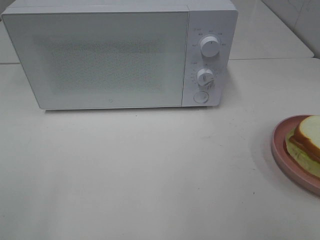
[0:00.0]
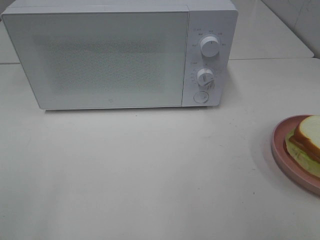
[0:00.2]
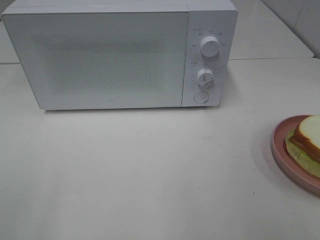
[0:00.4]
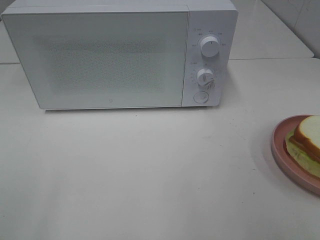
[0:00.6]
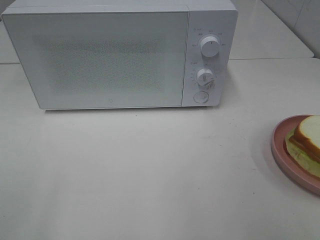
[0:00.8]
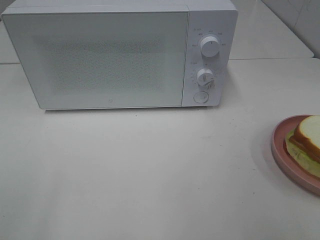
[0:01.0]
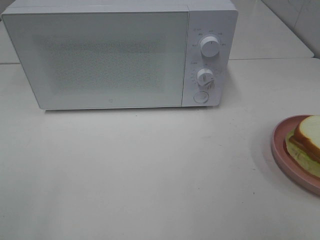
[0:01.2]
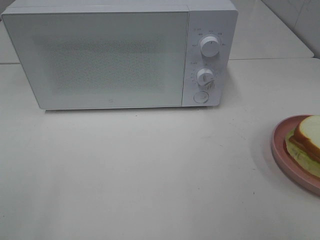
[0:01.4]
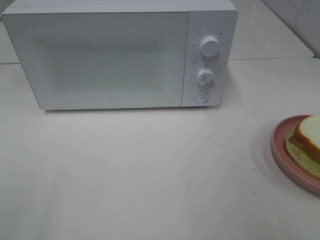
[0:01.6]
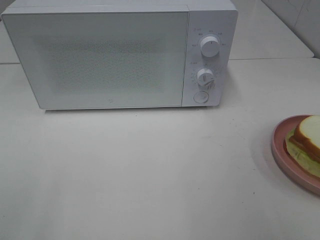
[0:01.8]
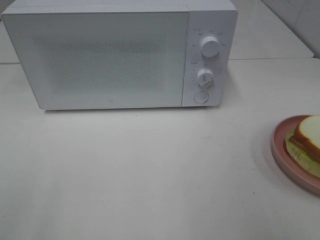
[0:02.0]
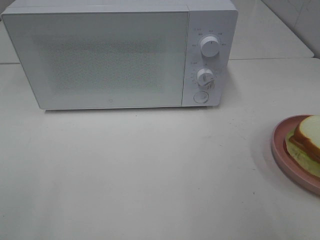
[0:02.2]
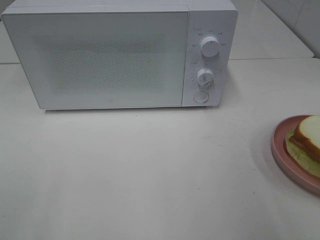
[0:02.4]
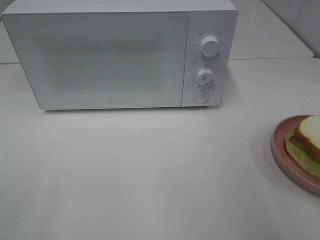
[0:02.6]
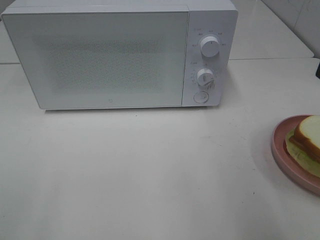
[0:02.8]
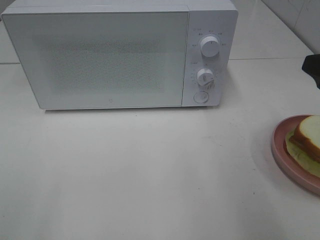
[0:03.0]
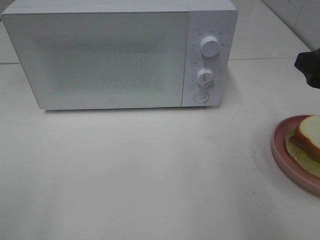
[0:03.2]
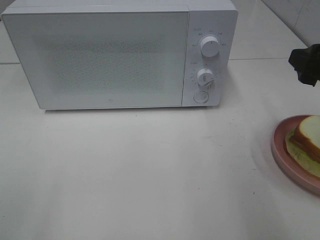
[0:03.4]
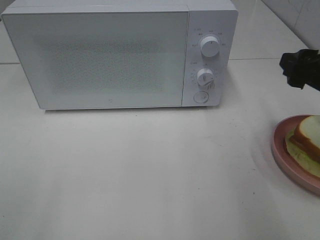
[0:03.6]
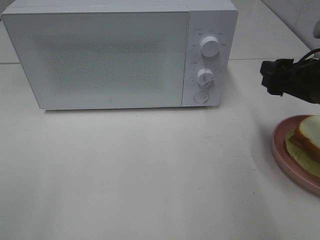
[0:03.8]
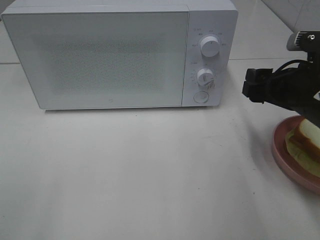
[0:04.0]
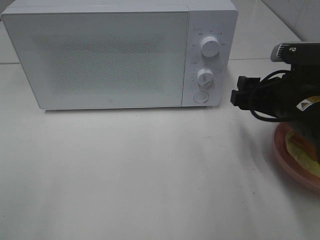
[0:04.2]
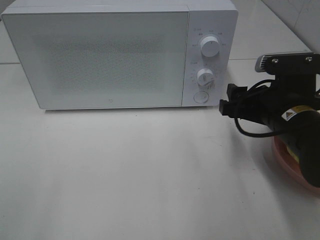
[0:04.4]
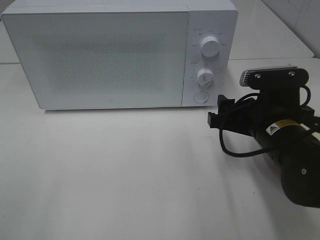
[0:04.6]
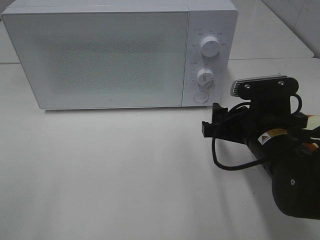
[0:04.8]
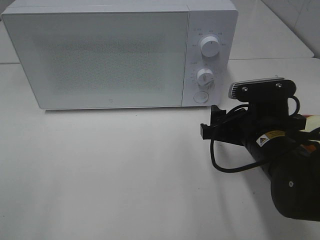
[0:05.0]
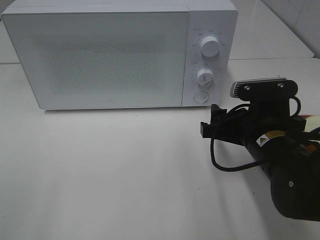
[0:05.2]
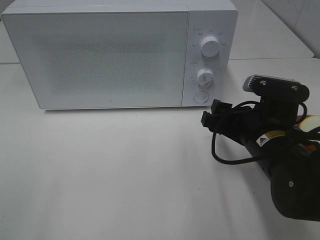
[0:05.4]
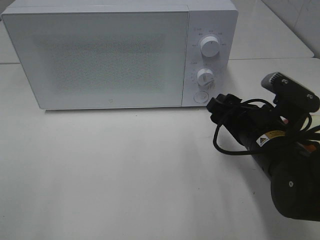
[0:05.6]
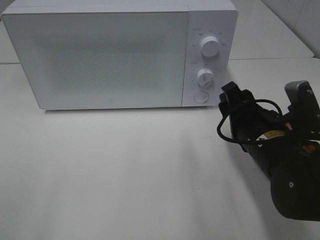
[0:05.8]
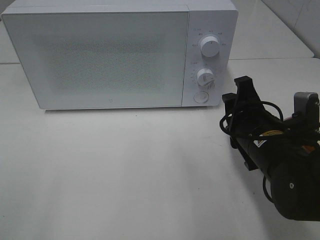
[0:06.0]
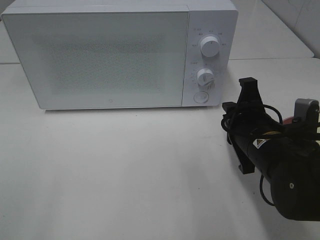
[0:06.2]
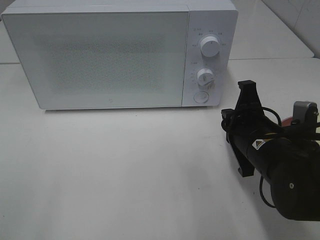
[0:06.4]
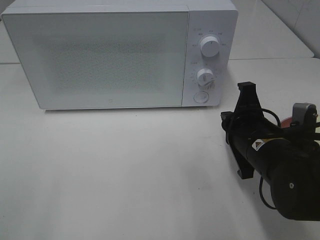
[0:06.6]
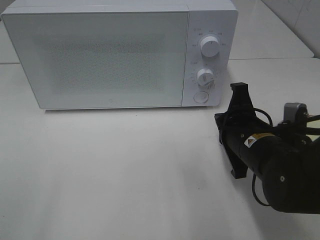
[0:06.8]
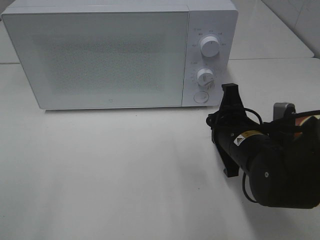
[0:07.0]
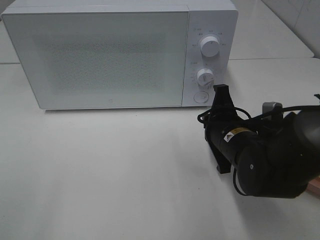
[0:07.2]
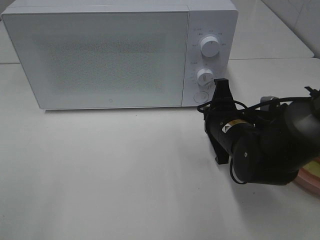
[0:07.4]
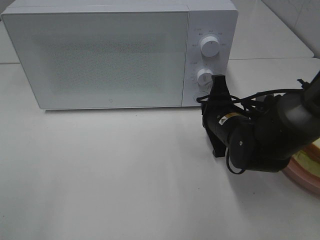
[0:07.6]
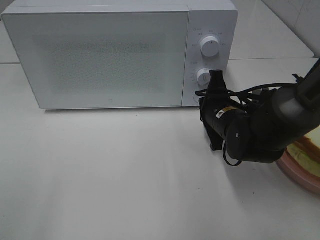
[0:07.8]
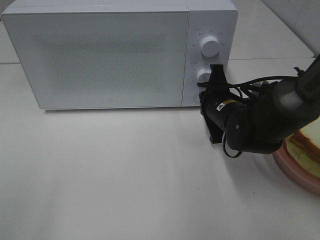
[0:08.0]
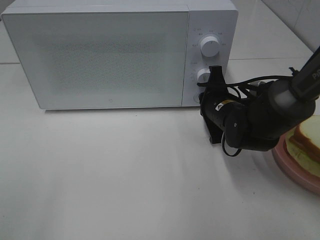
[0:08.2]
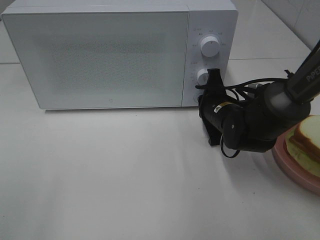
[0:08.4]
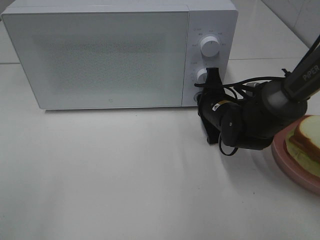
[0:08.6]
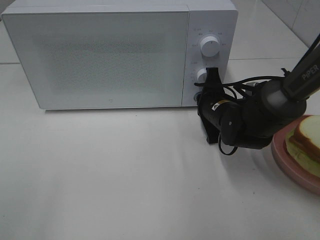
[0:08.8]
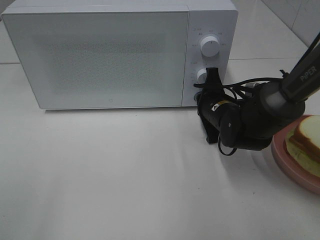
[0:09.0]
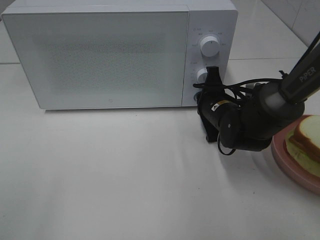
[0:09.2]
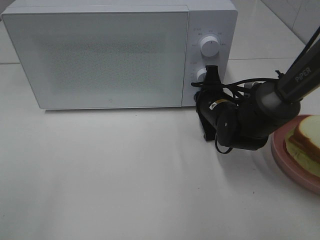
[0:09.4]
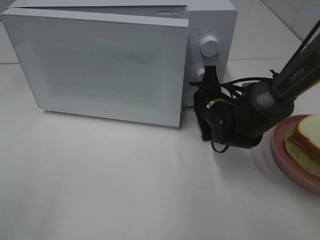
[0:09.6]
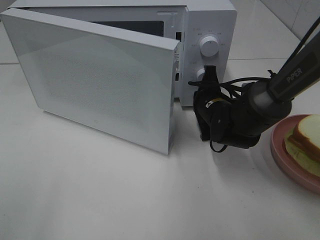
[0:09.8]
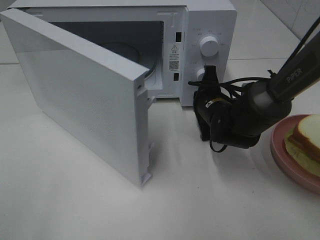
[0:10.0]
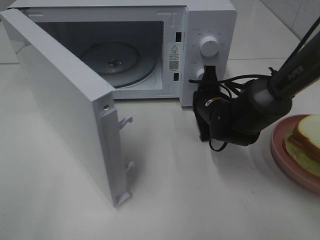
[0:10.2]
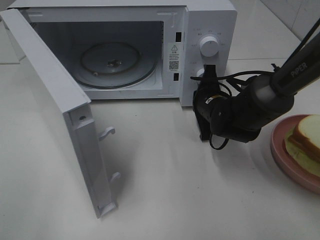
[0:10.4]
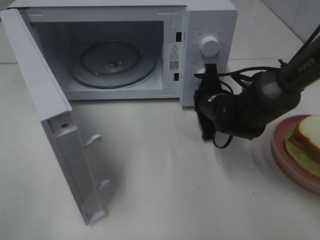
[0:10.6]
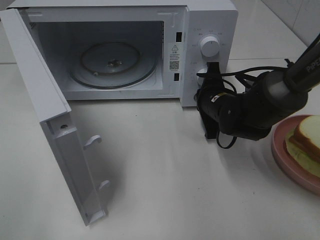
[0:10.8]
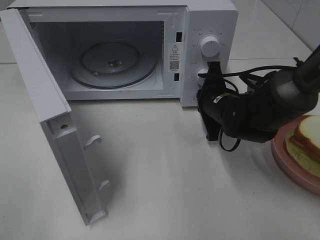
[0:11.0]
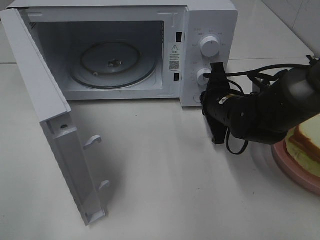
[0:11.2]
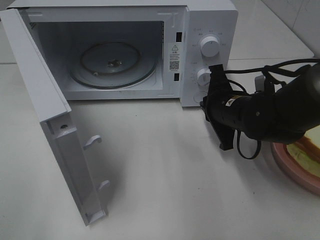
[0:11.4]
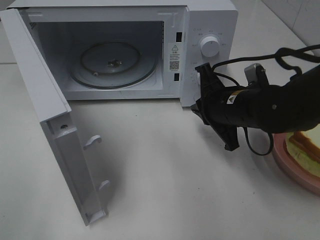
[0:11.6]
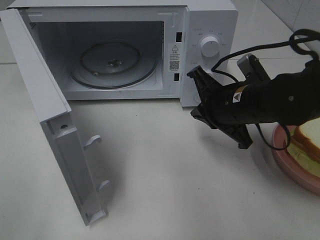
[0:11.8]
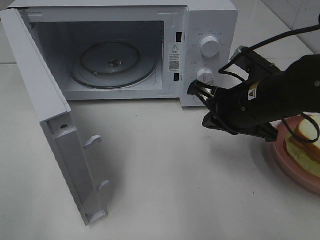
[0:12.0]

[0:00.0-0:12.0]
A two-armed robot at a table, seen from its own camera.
Task of the whole recording: Heat Sandwich.
Step, 0:00.0 to 0:11.0: Right hand: press the switch.
0:03.0 to 0:04.4: The right gripper goes some 15 cm downward, to the left and forward.
0:06.0 to 0:07.6: The right gripper heads forward, covering about 10 cm, and closes its fingers.
0:07.6 to 0:09.0: The right gripper moves about 5 cm.
0:10.4 to 0:12.0: The right gripper shifts about 15 cm backward and upward.

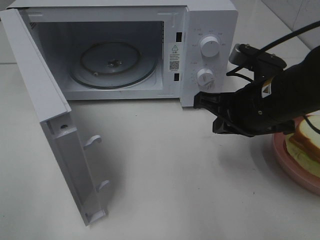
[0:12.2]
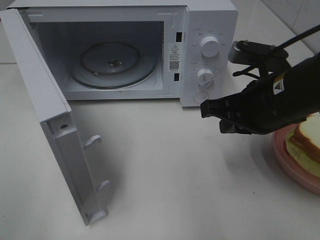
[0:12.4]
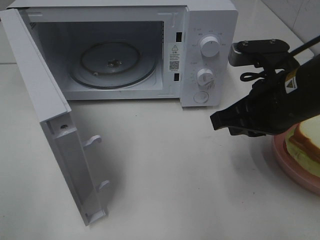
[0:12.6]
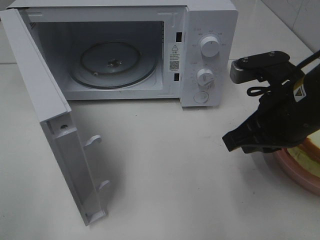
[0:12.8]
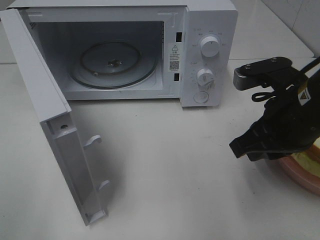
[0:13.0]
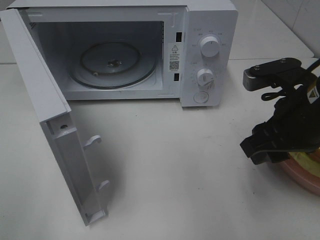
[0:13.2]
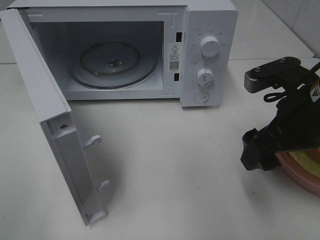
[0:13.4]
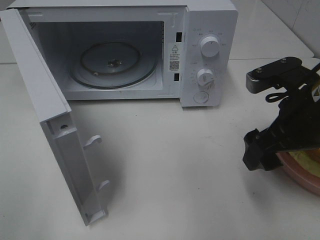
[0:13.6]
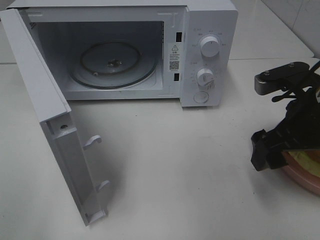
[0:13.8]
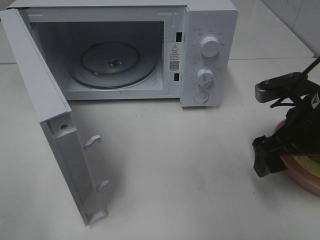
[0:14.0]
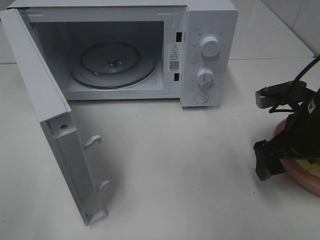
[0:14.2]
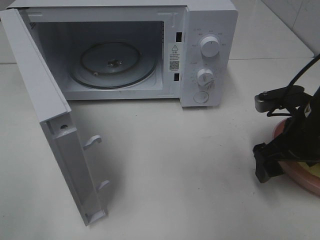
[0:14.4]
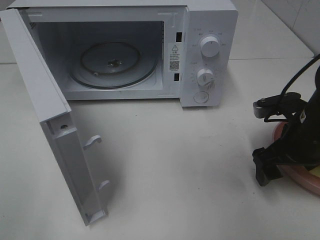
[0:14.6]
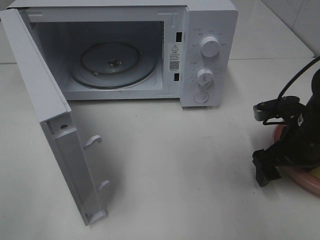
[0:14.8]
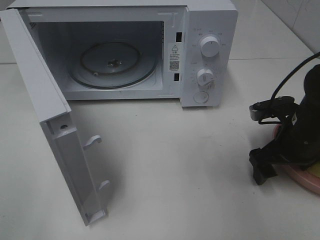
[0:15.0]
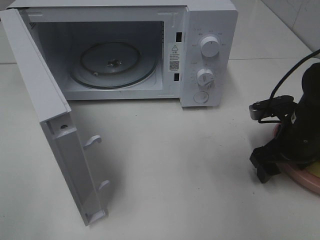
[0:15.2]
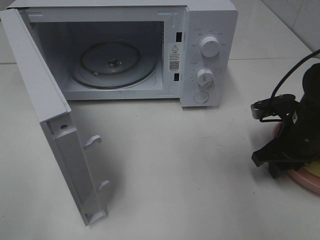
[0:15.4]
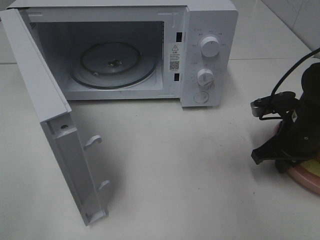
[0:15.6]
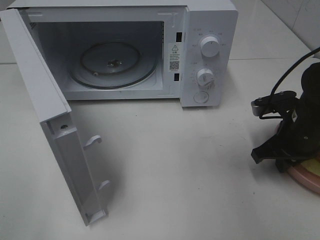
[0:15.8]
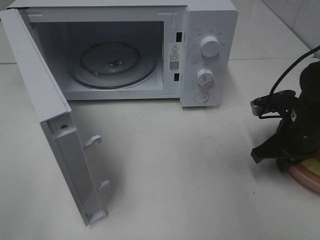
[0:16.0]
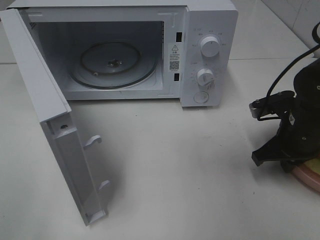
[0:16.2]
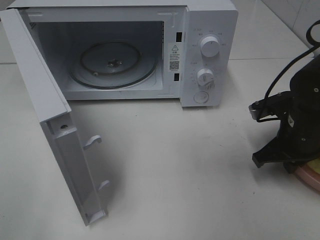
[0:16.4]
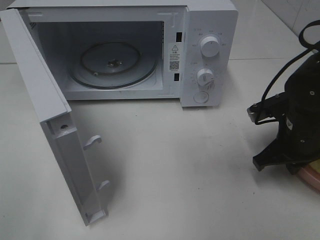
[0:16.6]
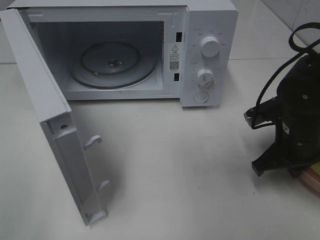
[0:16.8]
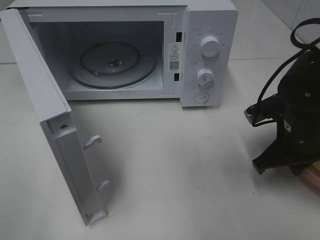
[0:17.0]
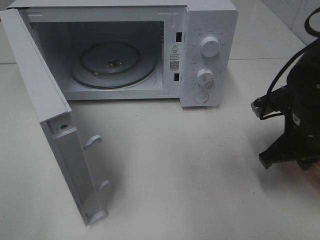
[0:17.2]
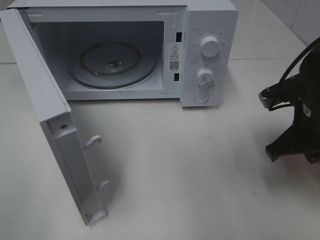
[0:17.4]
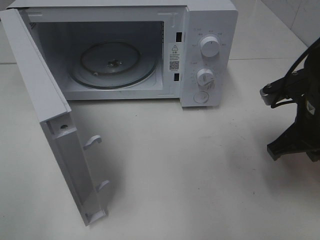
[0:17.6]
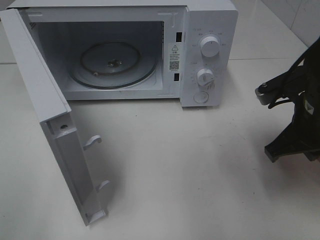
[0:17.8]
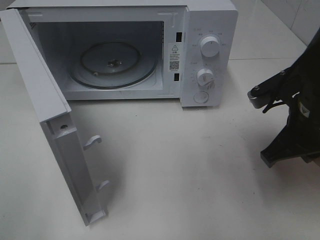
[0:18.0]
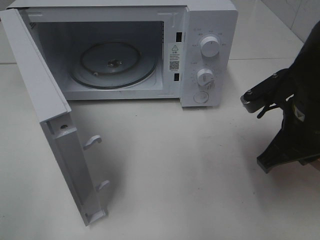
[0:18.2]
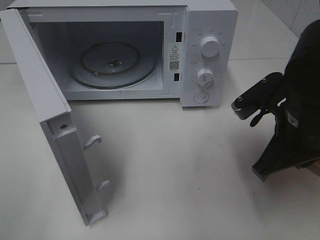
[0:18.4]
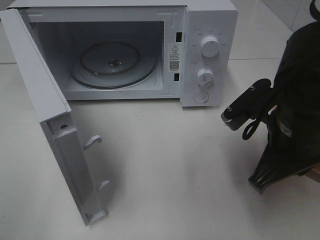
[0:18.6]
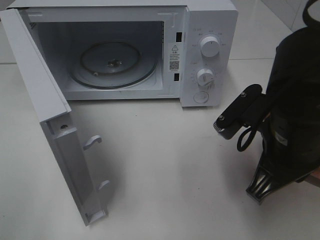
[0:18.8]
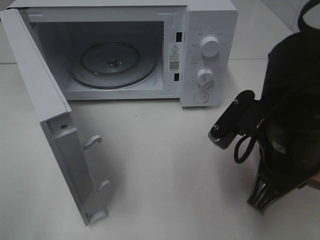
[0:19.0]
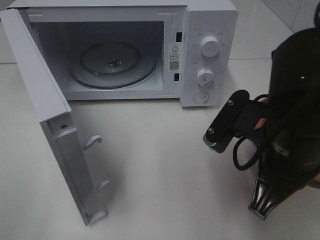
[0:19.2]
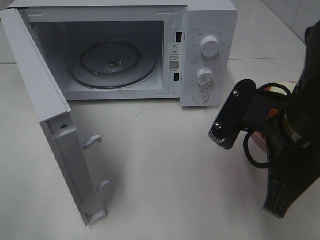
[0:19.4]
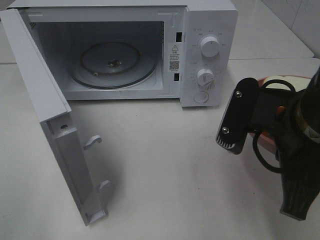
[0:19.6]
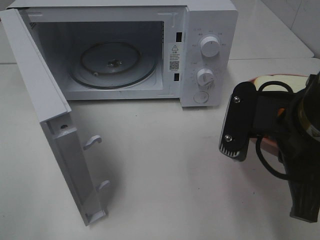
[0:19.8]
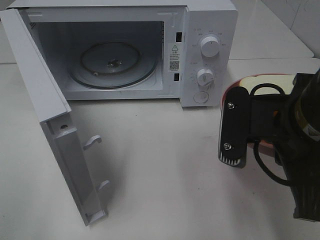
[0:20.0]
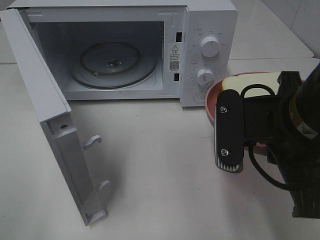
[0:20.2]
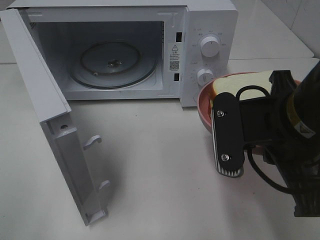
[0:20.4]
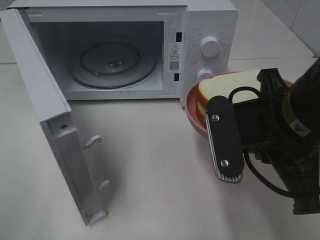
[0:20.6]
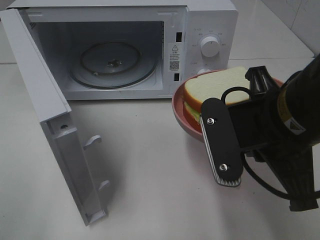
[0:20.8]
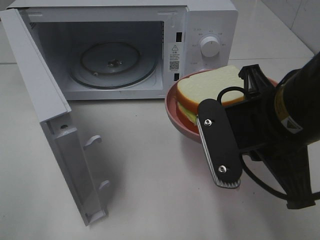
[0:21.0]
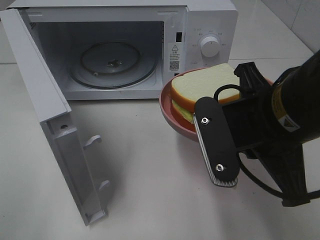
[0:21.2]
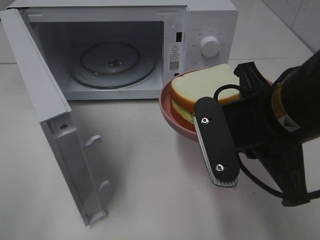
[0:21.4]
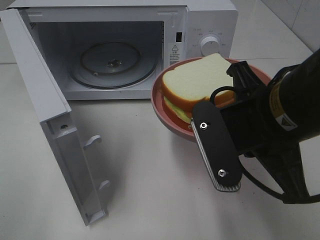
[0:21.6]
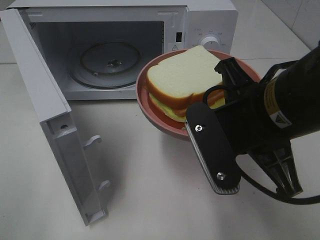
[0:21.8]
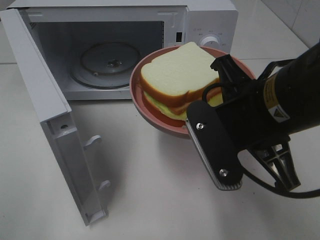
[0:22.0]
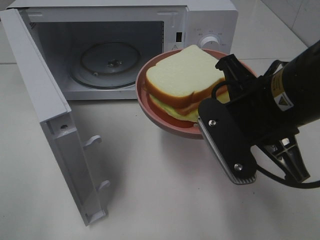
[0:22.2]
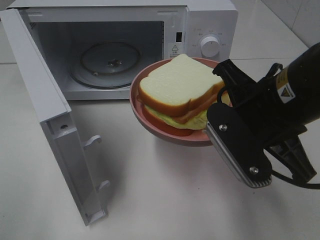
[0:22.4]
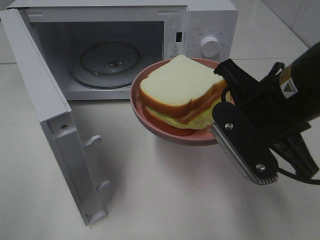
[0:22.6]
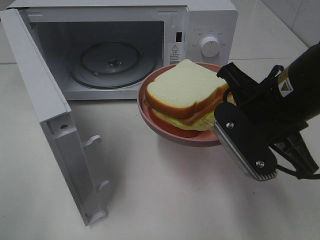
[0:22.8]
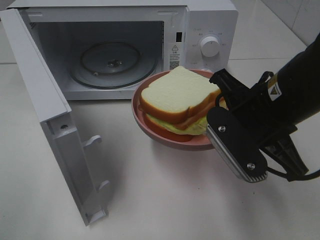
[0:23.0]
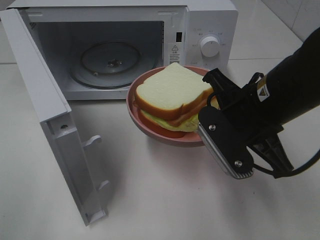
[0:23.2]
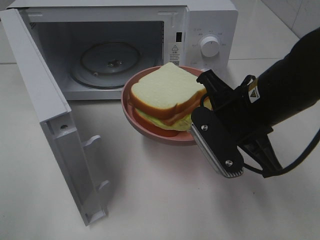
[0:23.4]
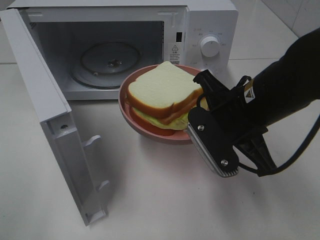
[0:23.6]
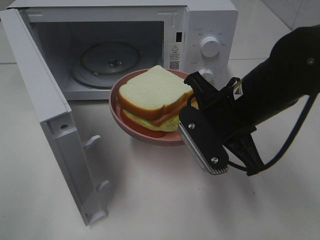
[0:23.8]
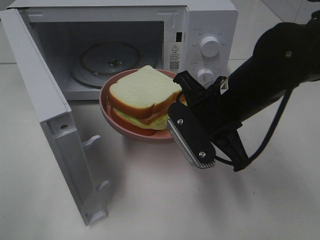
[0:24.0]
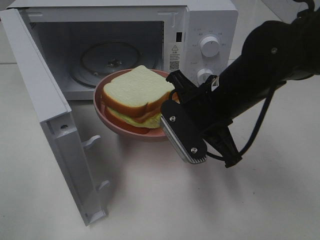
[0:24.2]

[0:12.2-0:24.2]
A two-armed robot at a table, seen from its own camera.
Task of the whole recording: Heat Sandwich.
Step, 0:12.2 to 0:16.2: Right hand: grab the plate with the sandwich.
0:12.2 to 0:13.8: The right gripper moves to the right, approximately 5 cm, and opens its fingers.
0:13.8 to 0:15.2: The right gripper heads downward, covering roughly 10 cm.
0:15.2 to 0:16.6: The right gripper closes up.
0:16.6 to 0:18.2: The right gripper goes about 5 cm upward.
0:18.2 to 0:19.8: The right gripper travels backward by about 5 cm.
0:22.6 to 0:24.2: The right gripper travels forward and downward by approximately 10 cm.
